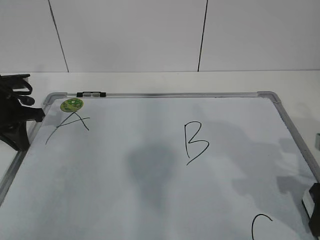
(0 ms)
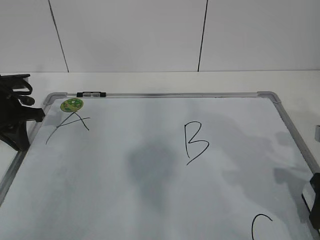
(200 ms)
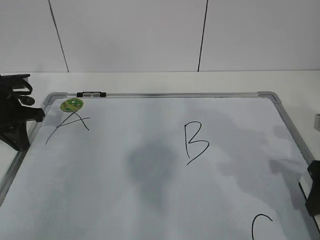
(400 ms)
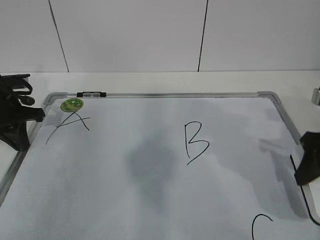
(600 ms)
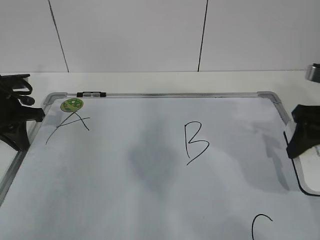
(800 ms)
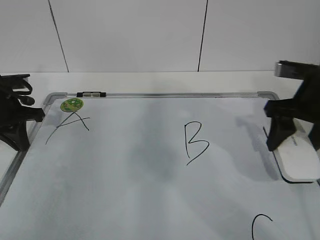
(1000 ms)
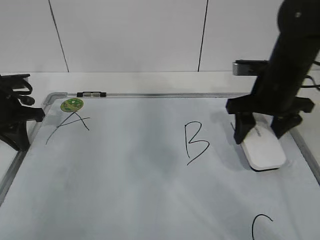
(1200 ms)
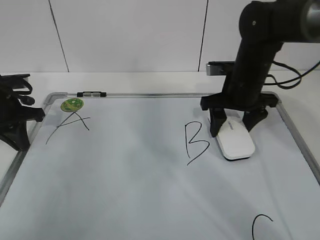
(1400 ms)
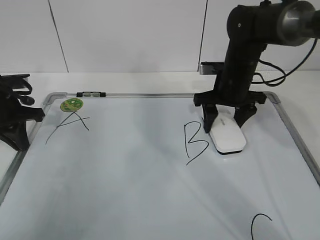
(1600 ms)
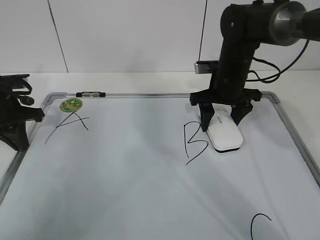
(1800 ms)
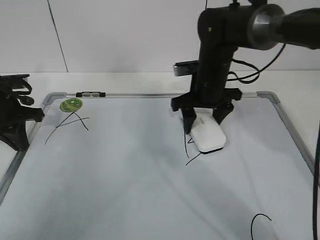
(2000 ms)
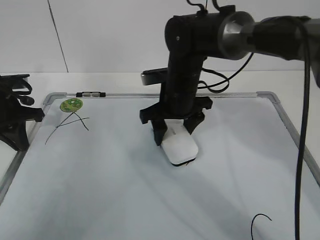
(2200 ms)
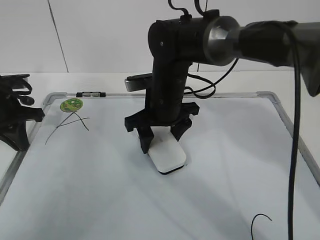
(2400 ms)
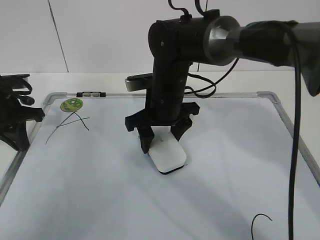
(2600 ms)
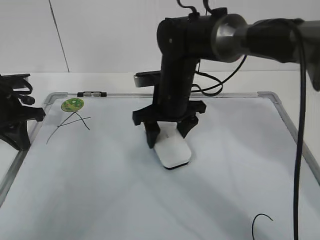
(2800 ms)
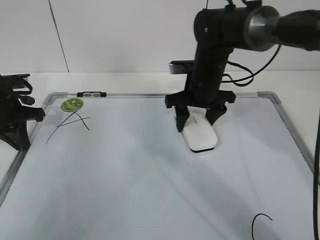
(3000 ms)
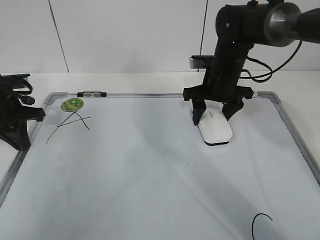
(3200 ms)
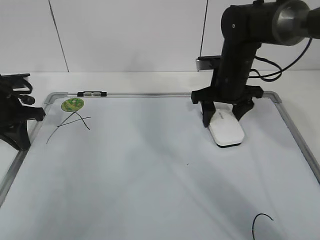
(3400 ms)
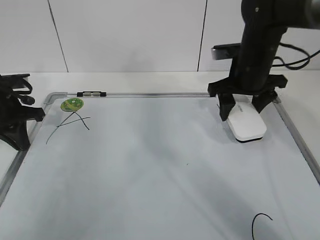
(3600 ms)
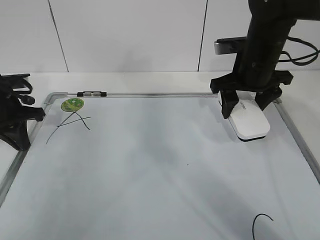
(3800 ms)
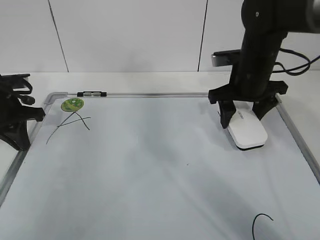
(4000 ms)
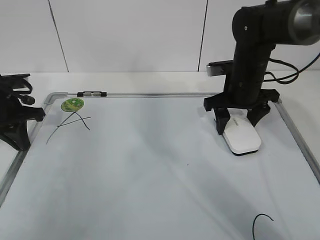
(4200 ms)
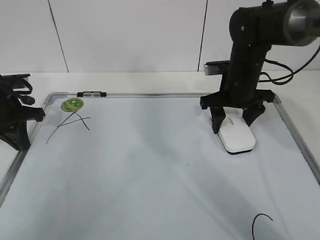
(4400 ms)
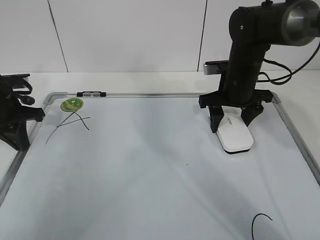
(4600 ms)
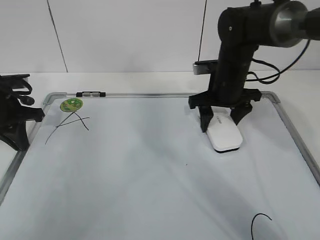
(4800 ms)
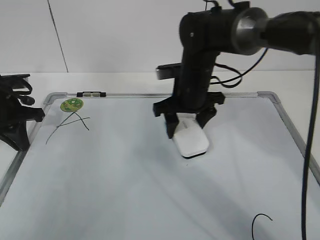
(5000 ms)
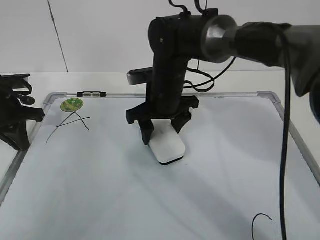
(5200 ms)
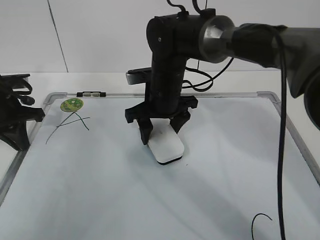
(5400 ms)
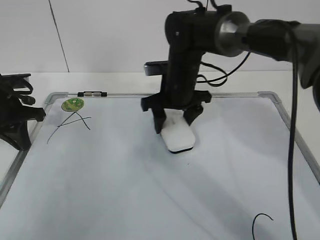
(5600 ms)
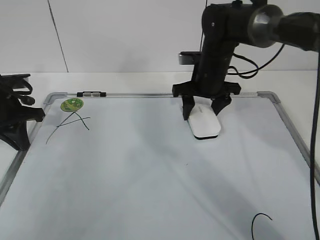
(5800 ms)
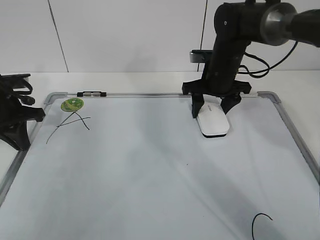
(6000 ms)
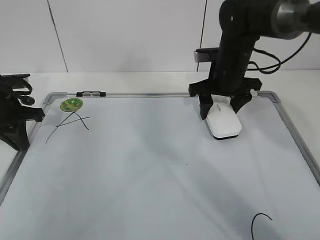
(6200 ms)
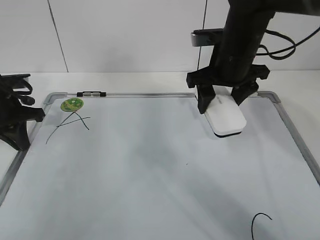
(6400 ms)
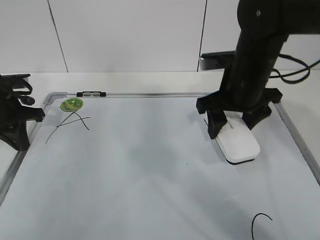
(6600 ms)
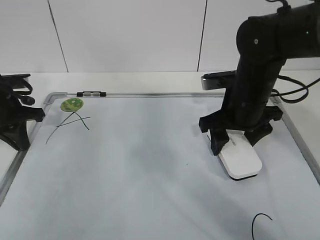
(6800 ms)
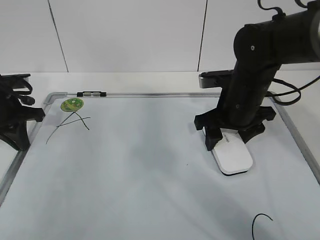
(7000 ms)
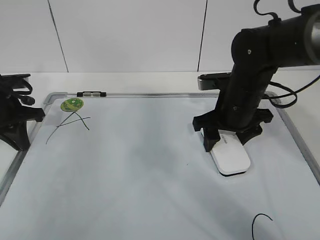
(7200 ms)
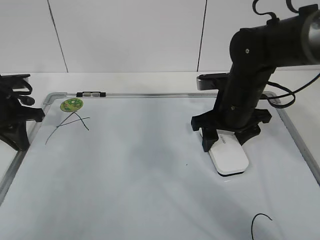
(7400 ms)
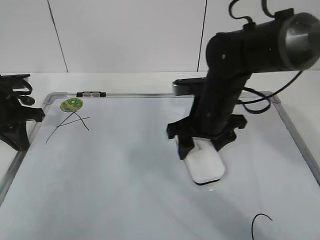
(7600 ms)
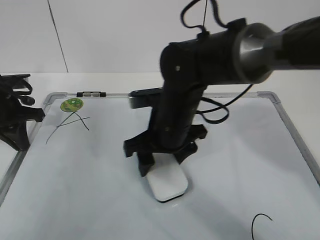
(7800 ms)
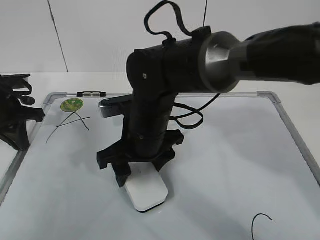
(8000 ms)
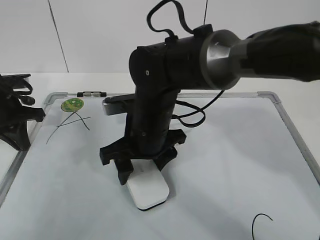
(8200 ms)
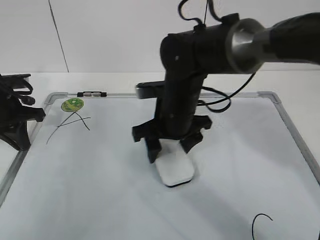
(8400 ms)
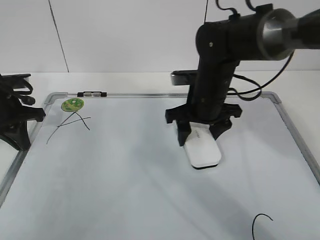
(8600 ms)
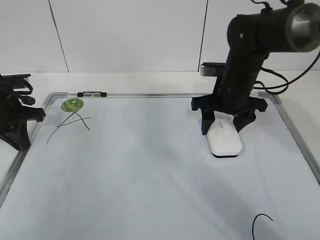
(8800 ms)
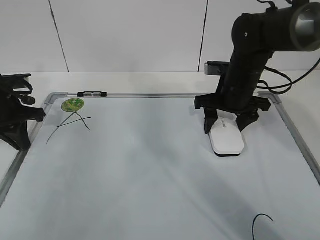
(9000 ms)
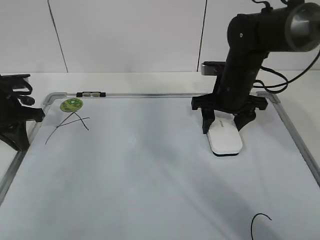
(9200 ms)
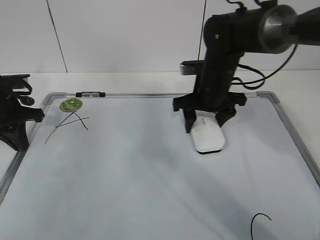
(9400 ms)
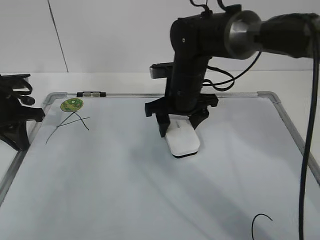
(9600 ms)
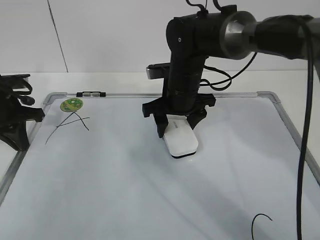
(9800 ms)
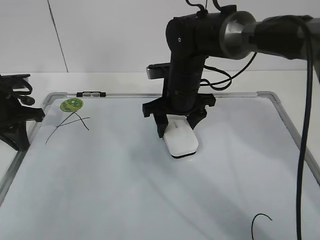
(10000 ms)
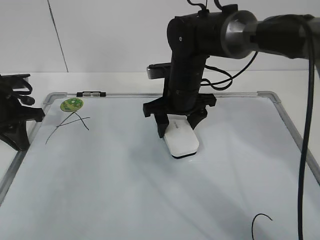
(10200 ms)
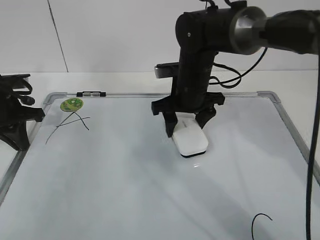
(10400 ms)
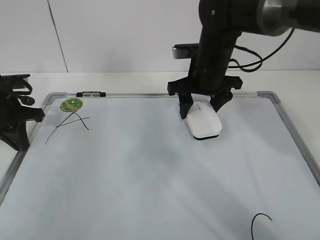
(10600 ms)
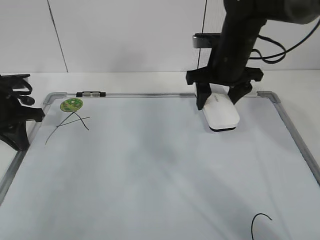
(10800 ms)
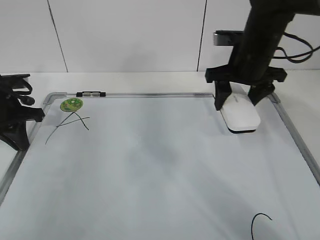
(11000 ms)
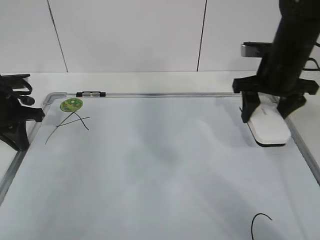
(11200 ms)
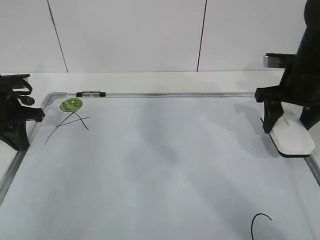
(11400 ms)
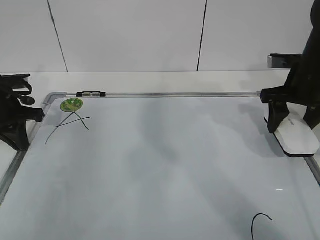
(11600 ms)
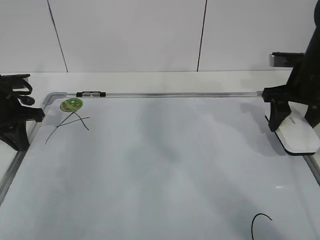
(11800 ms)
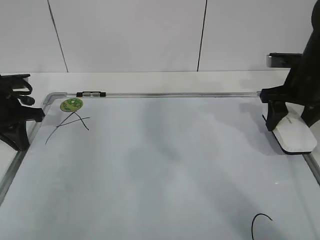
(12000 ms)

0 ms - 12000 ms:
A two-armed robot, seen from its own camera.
Task of the whole recording: pick up the eraser on the blackboard and erase the letter "B".
Step, 0 ms - 6600 ms: Erase the letter B with your right hand.
Step, 6800 ms - 9800 ms: Put down the eraser with your right hand.
0 ms - 1600 ms: The right gripper heads forward and to the left, covering roughly 25 cm.
1600 ms - 3000 ms: The right gripper travels to the left and back again, approximately 15 cm each way.
3000 ms - 4400 ms: The right gripper moves to the right, about 5 cm.
4400 ms - 6000 ms: The right gripper goes to the left and returns, about 15 cm each way.
6000 ms - 7600 ms: The right gripper shifts about 10 cm backward.
7600 ms - 9000 ms: The right gripper heads to the right and forward, covering some 10 cm.
9000 ms - 10400 ms: The right gripper shifts about 10 cm to the left.
10400 ms - 12000 ms: The right gripper goes approximately 20 cm to the right.

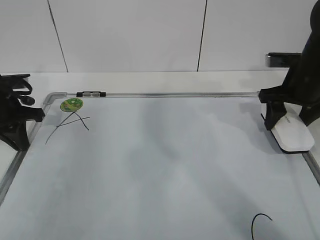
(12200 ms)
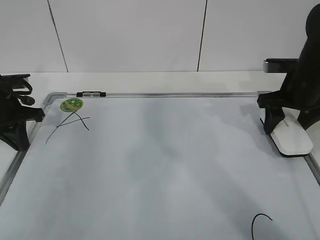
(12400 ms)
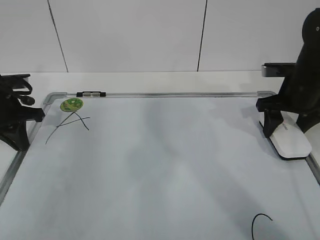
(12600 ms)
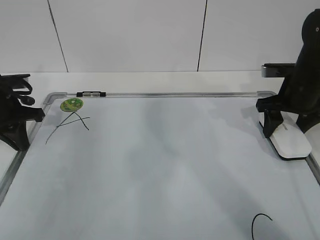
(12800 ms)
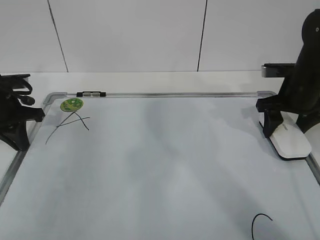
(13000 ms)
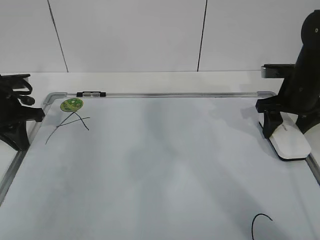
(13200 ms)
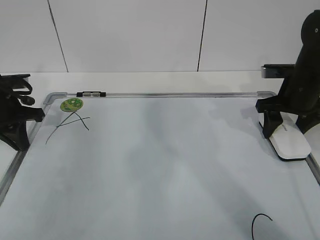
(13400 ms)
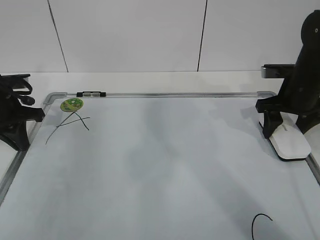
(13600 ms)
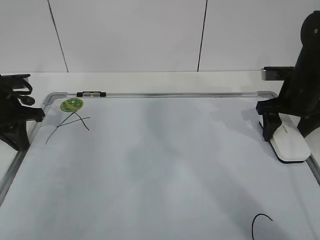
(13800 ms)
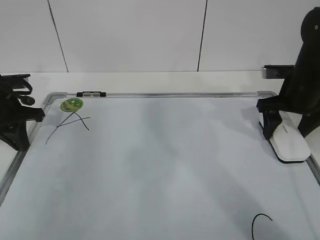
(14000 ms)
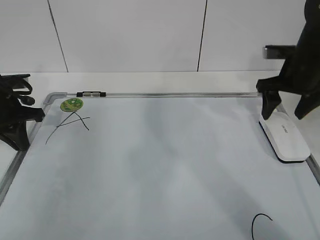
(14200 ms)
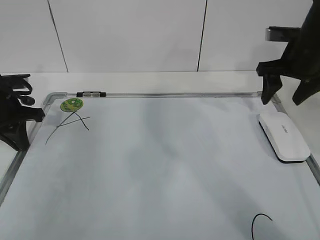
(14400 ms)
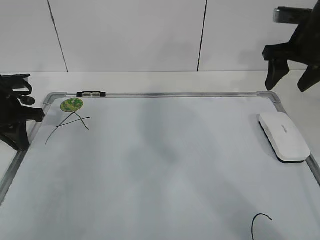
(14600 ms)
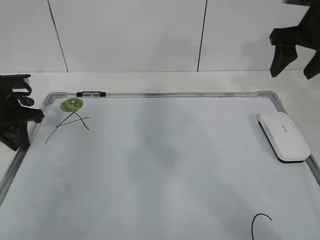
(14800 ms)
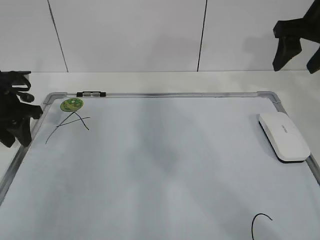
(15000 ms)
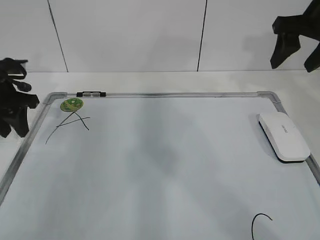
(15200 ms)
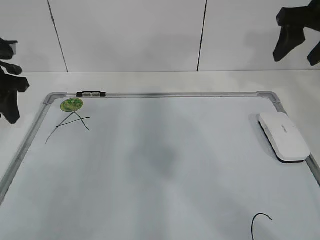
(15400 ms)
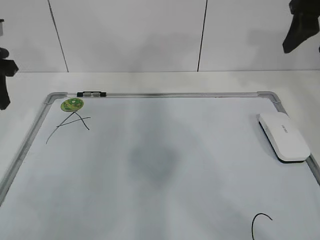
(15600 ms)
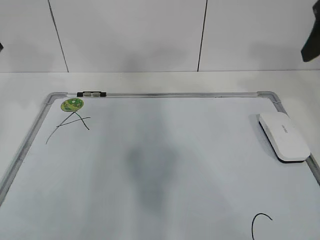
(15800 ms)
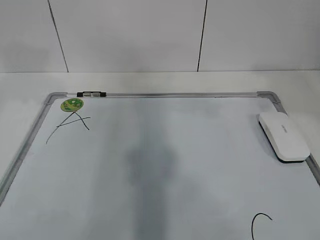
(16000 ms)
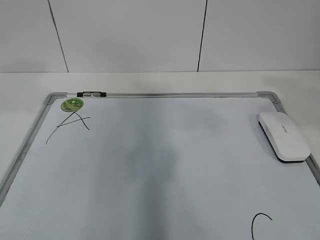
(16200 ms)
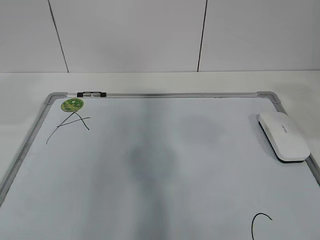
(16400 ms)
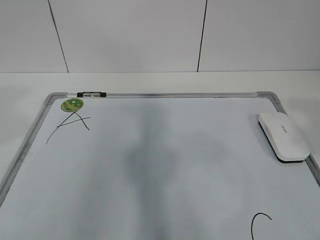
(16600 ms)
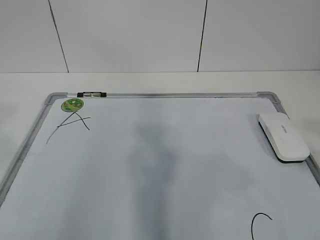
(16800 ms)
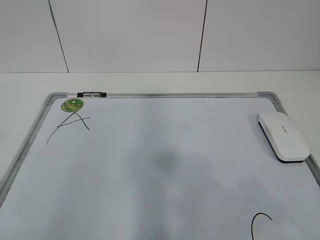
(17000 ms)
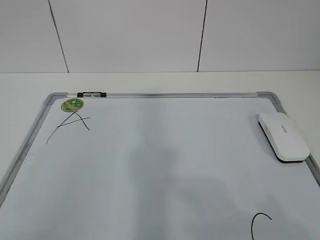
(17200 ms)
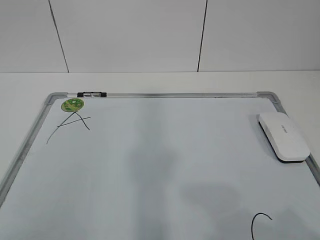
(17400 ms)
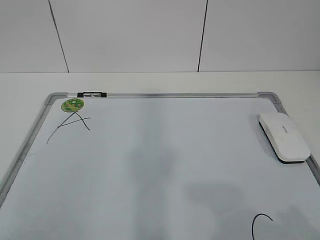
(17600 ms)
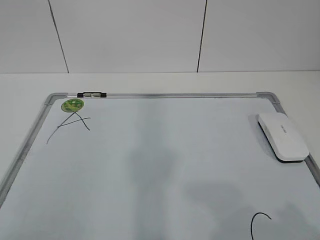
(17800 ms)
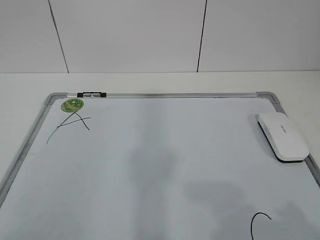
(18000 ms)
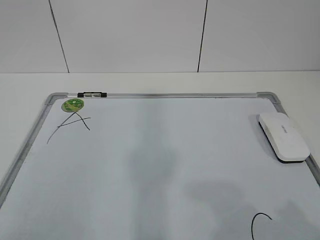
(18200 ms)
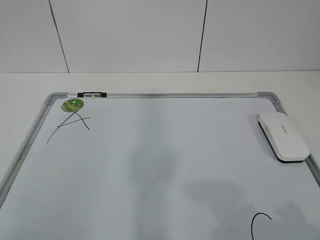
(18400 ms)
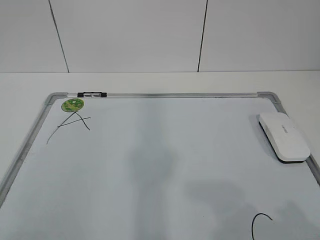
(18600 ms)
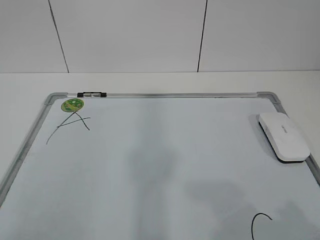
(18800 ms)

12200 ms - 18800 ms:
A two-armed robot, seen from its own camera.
Task of the whole recording: pick up the eraser on the blackboard and erase the letter "B".
12200 ms - 13800 ms: The right gripper opens up.
13800 ms - 15400 ms: The left gripper is displaced upward by approximately 10 cm, and opens up; the right gripper goes about 15 cm upward, and closes its fingers.
15400 ms - 17200 ms: The two grippers go about 40 cm backward.

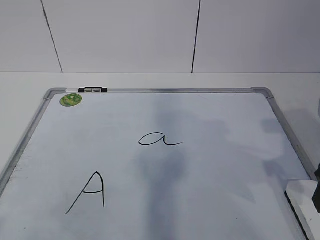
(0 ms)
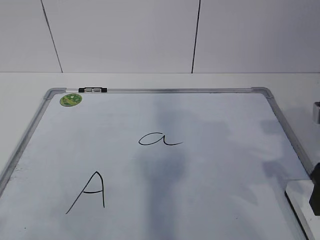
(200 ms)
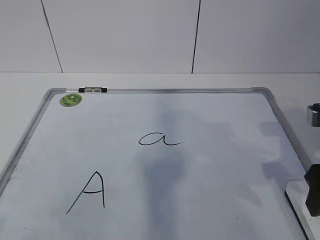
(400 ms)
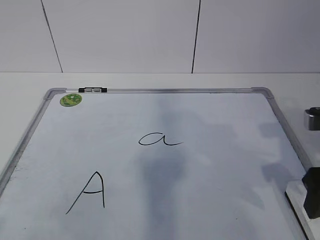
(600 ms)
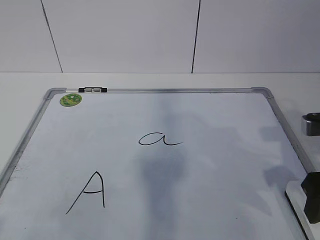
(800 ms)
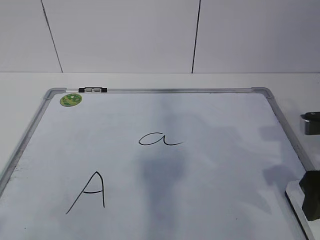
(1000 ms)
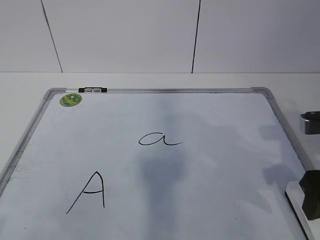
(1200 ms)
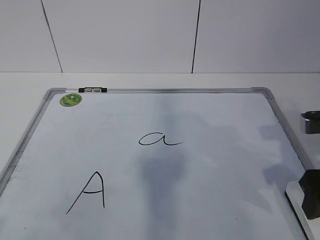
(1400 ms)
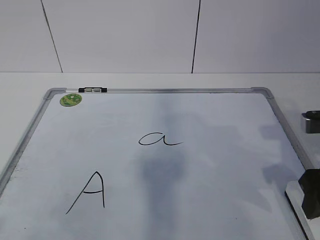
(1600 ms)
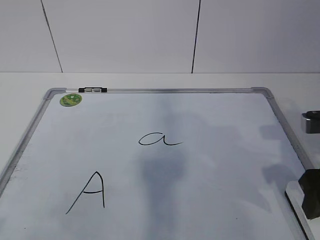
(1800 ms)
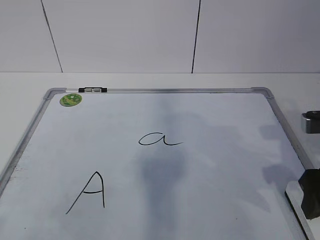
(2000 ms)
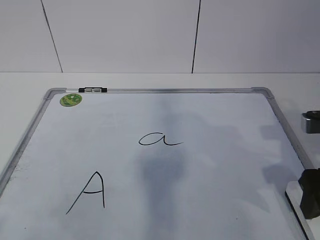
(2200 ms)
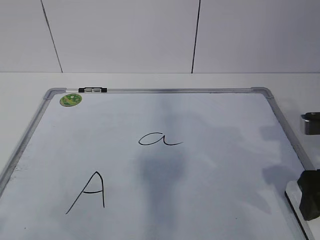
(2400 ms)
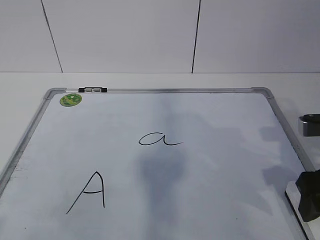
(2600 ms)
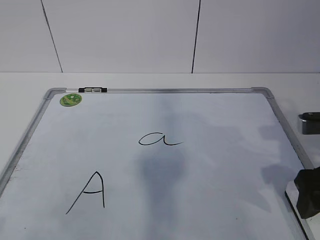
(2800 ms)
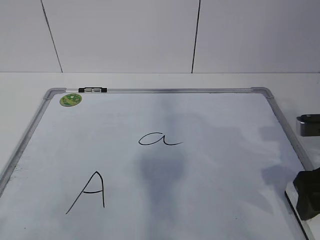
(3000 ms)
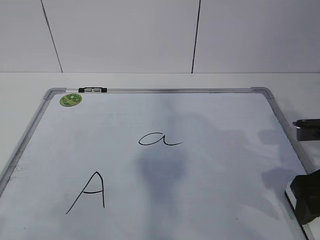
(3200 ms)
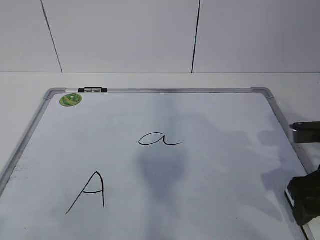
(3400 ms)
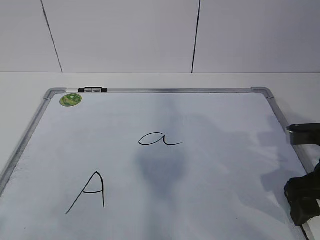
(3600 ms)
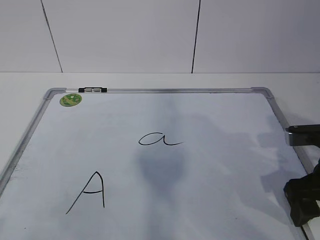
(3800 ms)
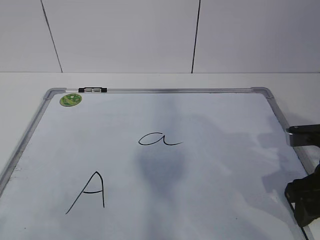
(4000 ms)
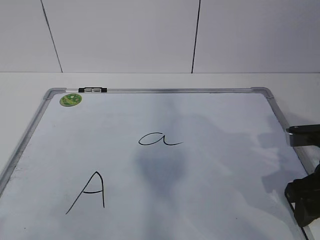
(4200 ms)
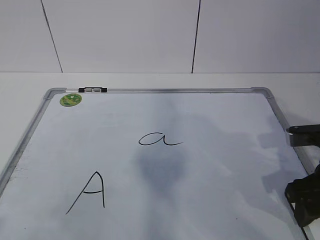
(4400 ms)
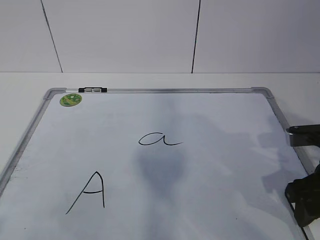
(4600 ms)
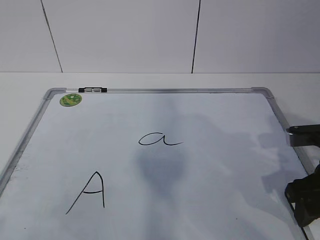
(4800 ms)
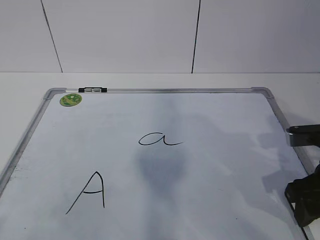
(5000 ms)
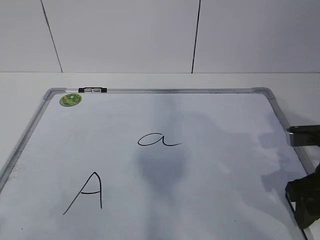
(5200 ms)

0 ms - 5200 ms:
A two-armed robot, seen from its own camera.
Task of the whole recording: pick up the eraser on the blackboard and erase the letter "a".
0 ms - 1800 ms: There are only small adjustments of the grippers.
1800 ms - 3400 ms: The right gripper opens its fingers.
3400 ms - 5200 ms: The right gripper closes.
